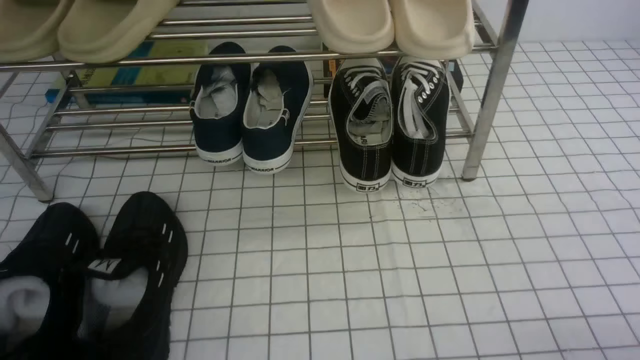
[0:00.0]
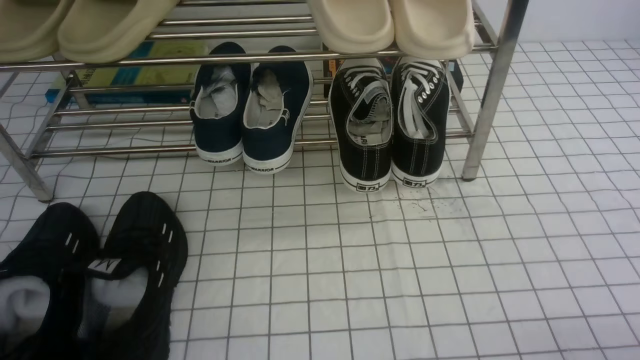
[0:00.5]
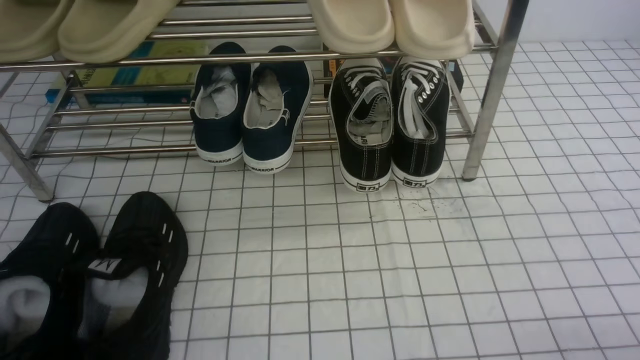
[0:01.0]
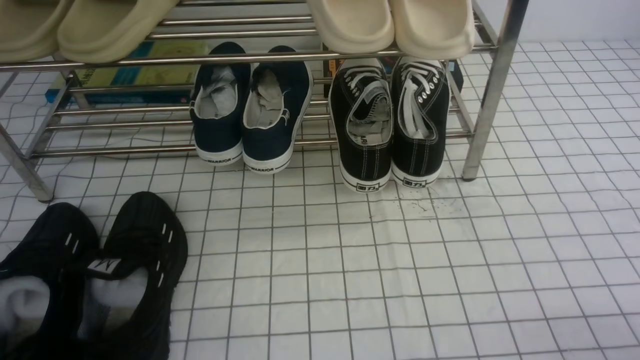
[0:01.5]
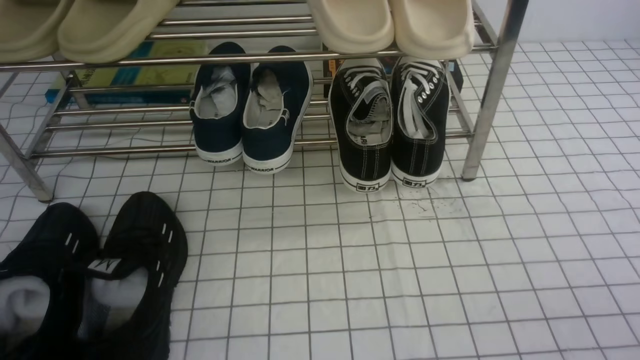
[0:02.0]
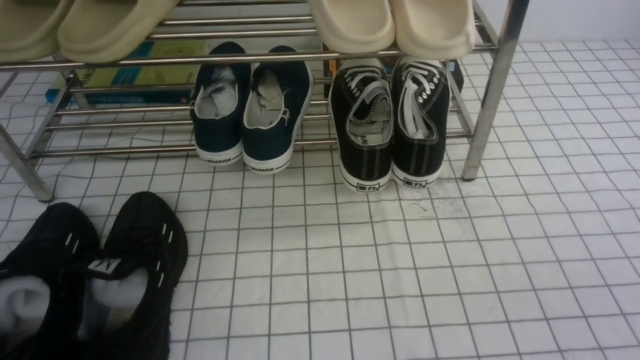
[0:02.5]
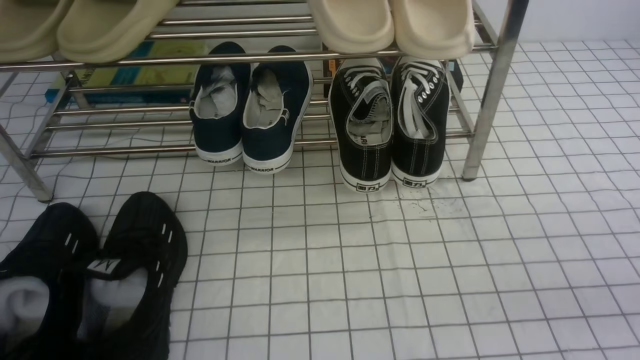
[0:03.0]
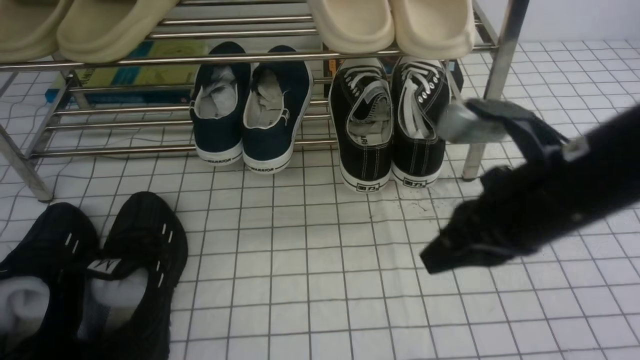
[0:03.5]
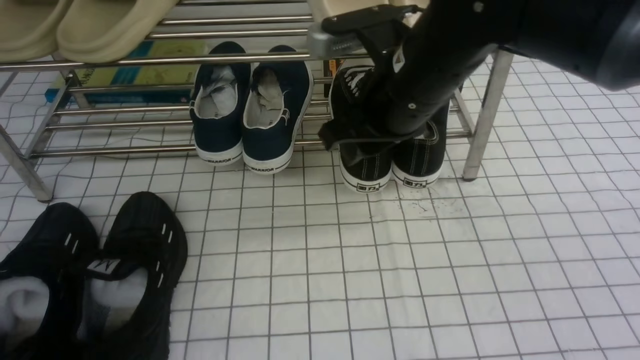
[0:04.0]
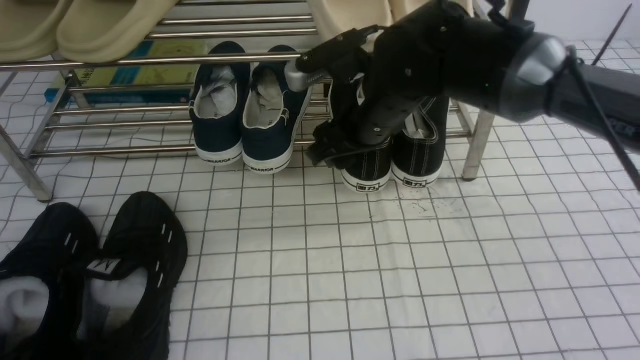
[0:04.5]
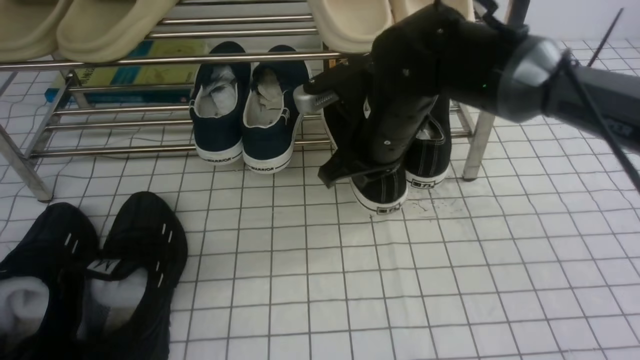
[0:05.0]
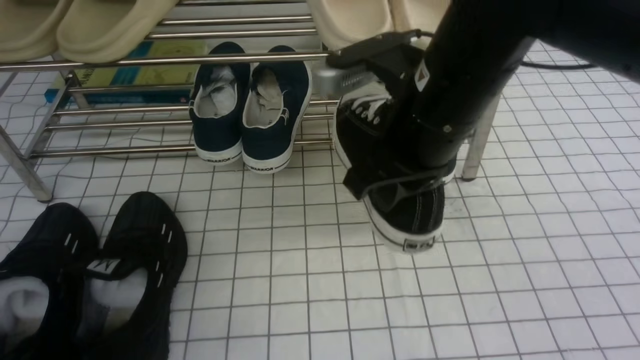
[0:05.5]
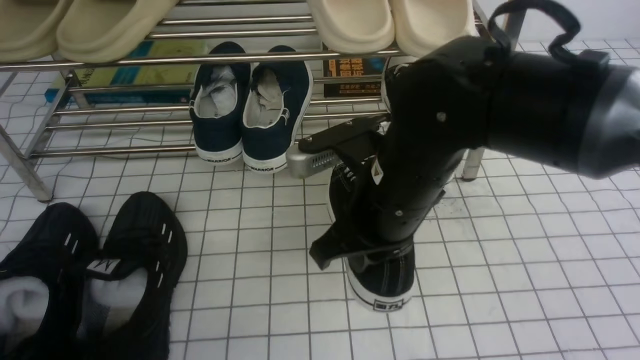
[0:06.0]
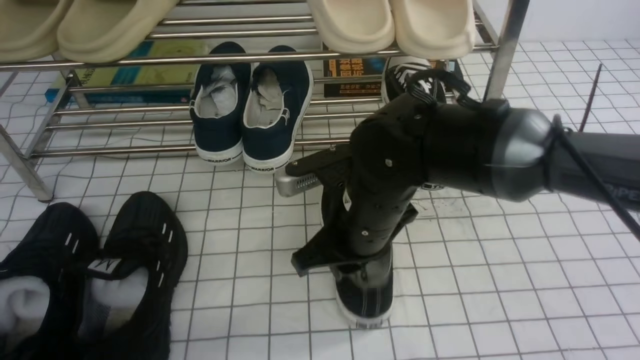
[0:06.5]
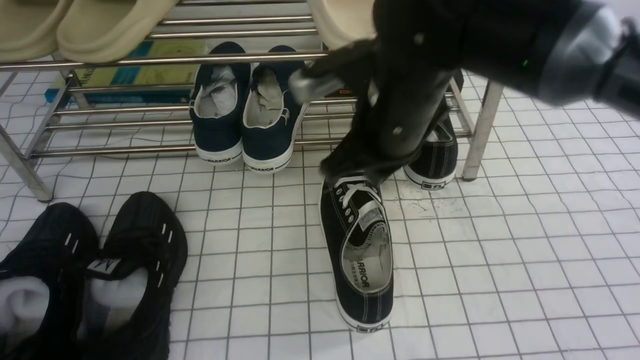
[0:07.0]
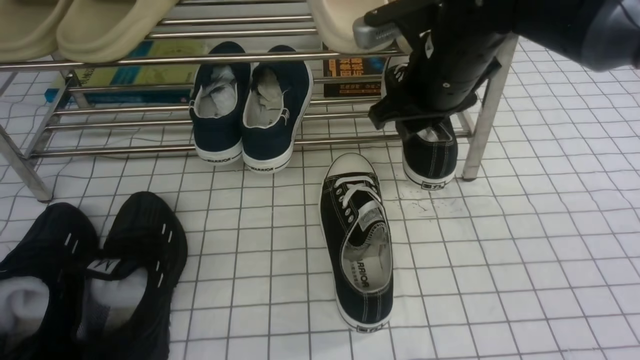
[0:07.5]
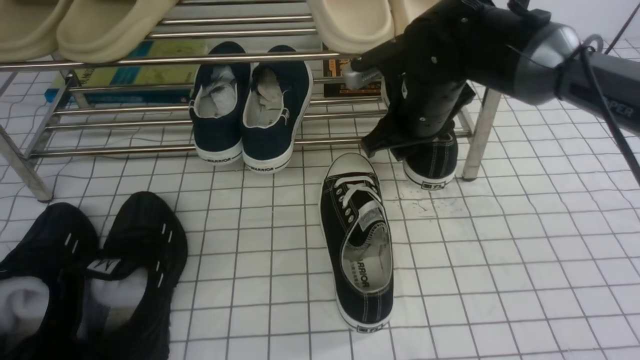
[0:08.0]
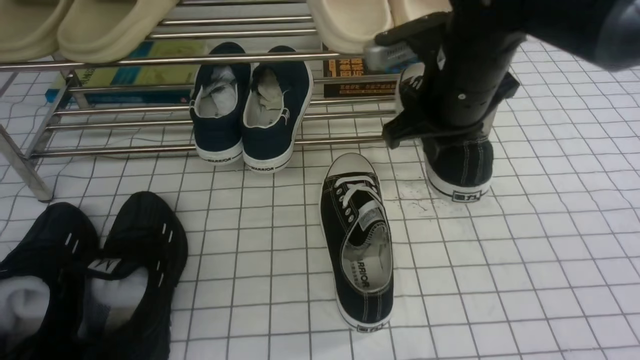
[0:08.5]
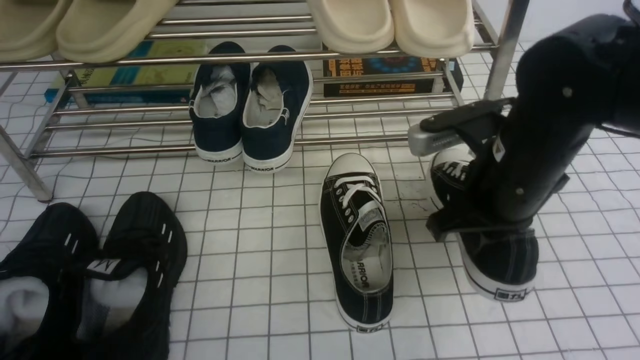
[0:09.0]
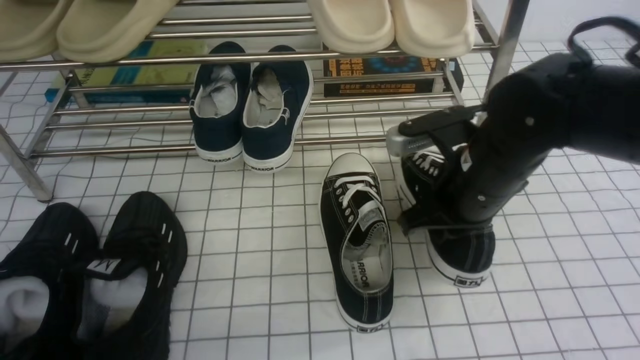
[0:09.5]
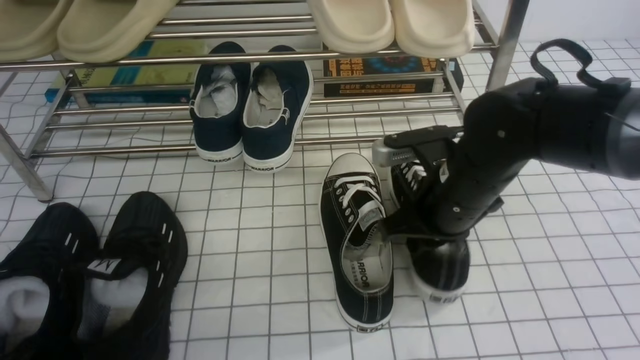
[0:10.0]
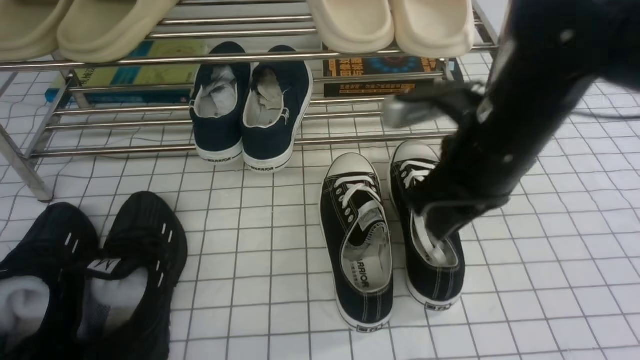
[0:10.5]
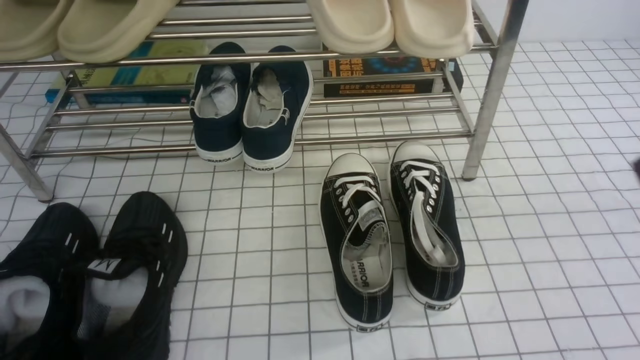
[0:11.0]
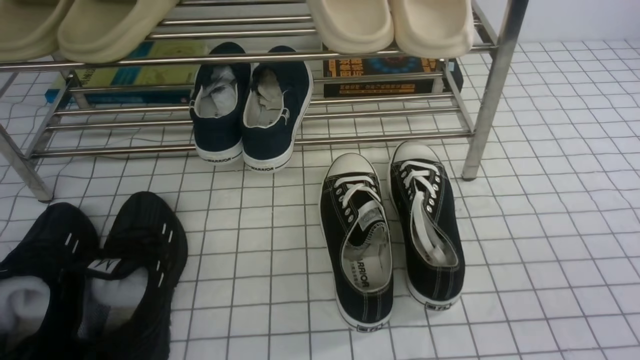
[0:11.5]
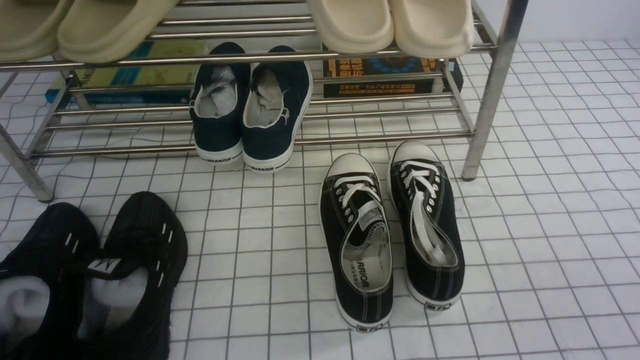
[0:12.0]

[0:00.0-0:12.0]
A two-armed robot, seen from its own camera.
Step, 0:00.0 to 0:04.5: use the right arm to clamp a shoe on the right side of the shoe rack.
Step, 0:05.0 to 0:06.5: use the right arm to take out the clamped shoe from the shoe rack and put it down.
Step, 0:07.0 to 0:08.0: use the right arm to clamp a shoe on the right side of the shoe rack.
Step, 0:08.5 to 0:10.5: use the right arm to take out the clamped shoe from the shoe rack and put it down.
0:02.0 to 0:04.0: The right gripper travels forward and to the left by about 35 cm, and closes and opens again.
0:04.0 to 0:06.0: The right gripper travels backward and downward by roughly 10 cm, and closes its fingers.
0:06.0 to 0:08.0: The right gripper shifts about 15 cm forward and to the right, and opens up.
0:08.0 to 0:10.0: The right gripper moves backward, some 10 cm.
0:10.0 to 0:12.0: The right gripper is displaced backward and to the right by roughly 30 cm.

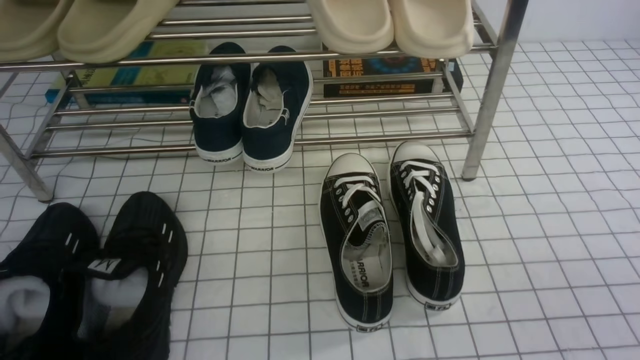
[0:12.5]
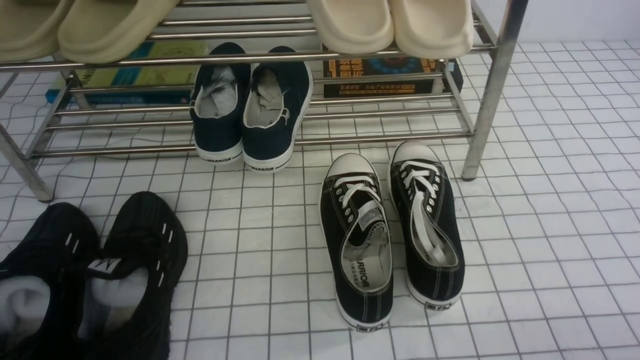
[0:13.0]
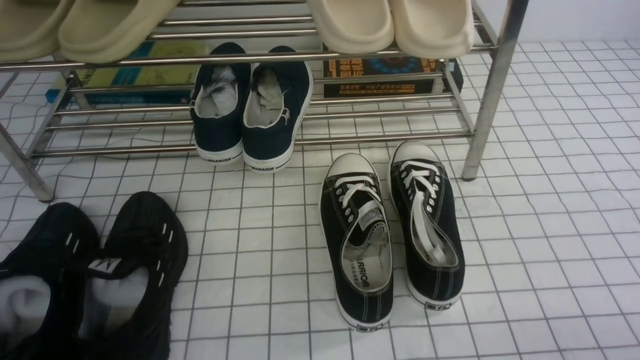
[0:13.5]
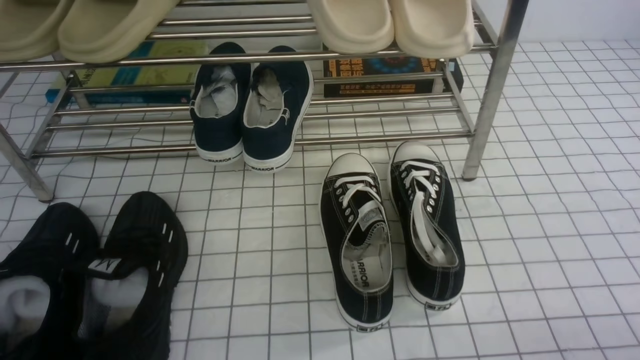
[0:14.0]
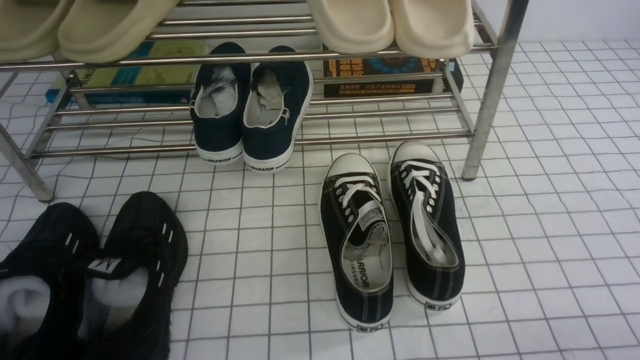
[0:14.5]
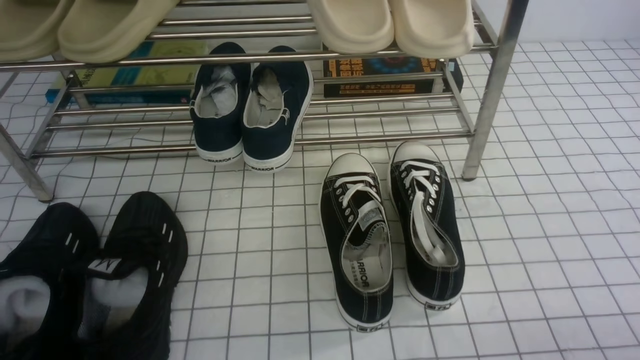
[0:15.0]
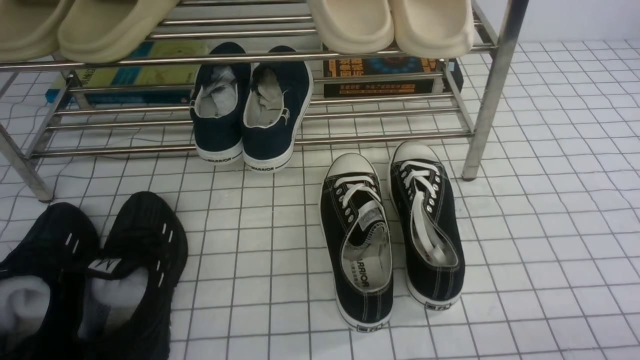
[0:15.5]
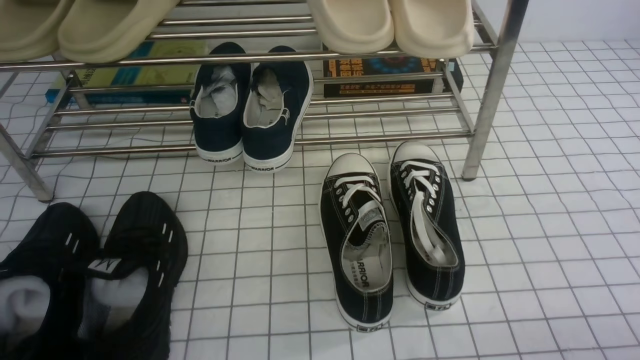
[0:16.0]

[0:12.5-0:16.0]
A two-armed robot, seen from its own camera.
0:14.5 to 0:16.0: The two grippers keep their place.

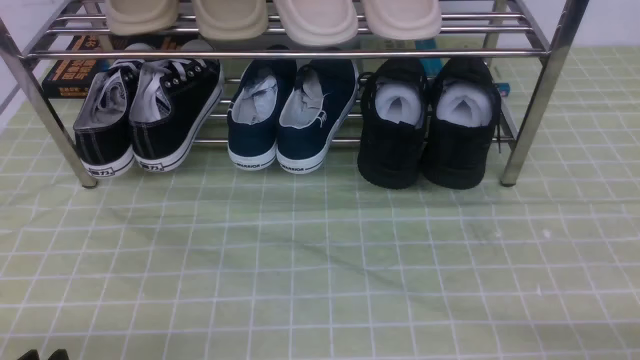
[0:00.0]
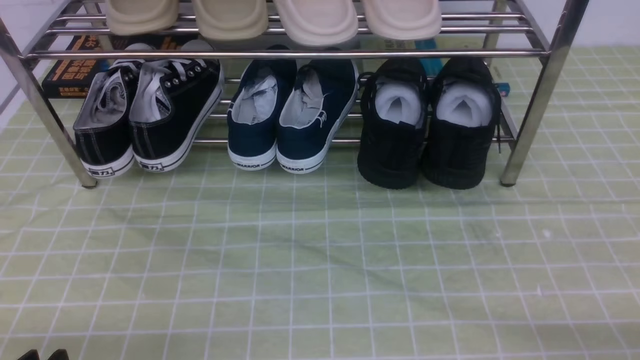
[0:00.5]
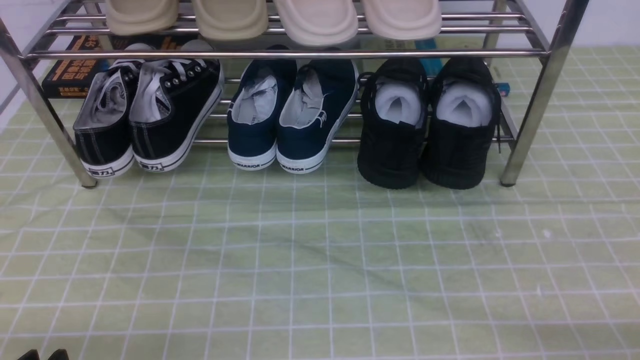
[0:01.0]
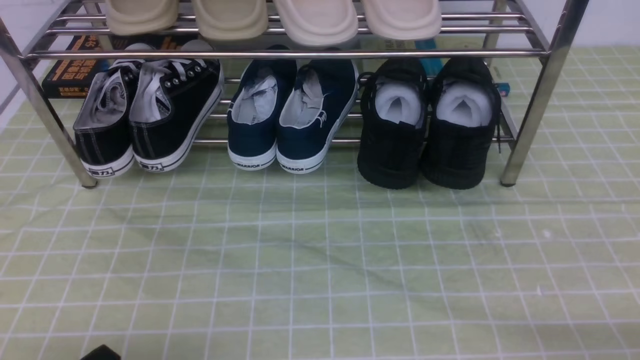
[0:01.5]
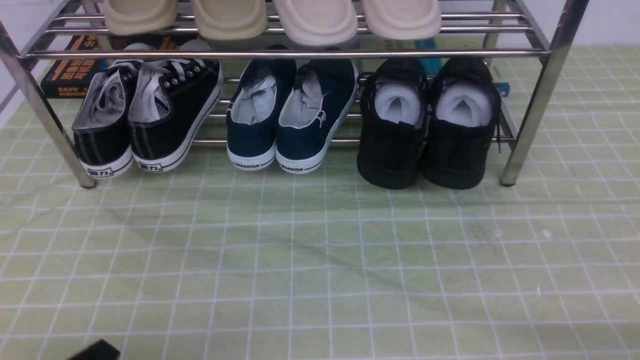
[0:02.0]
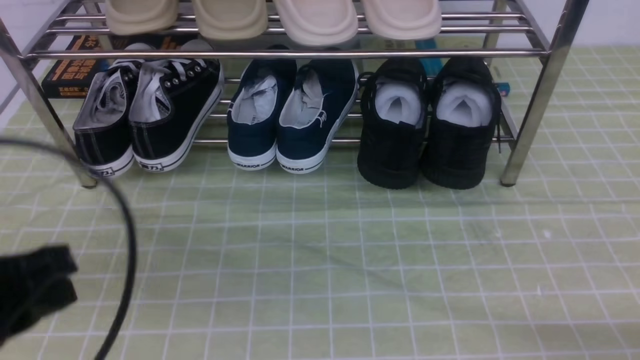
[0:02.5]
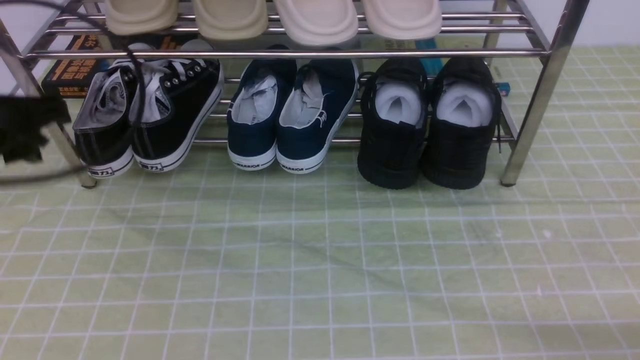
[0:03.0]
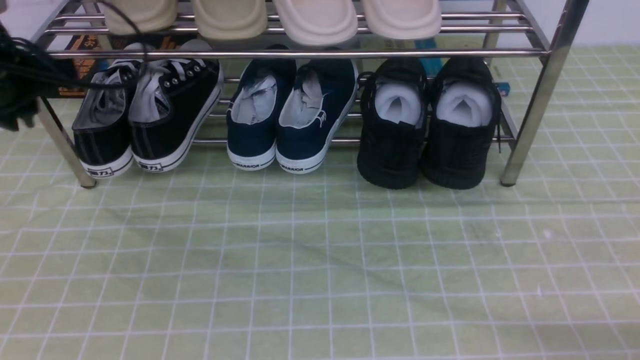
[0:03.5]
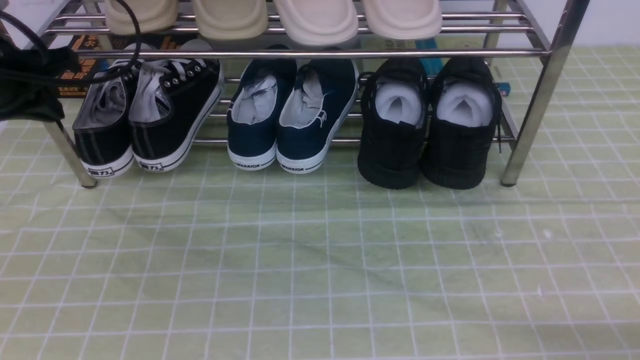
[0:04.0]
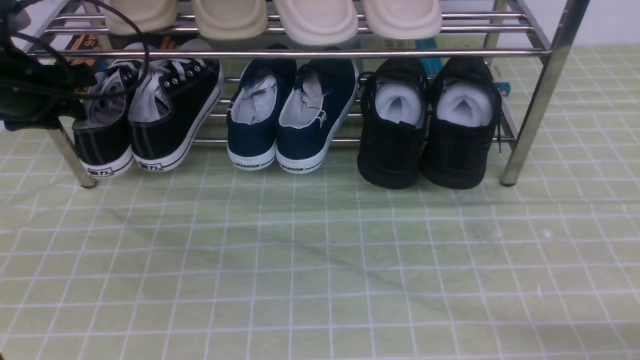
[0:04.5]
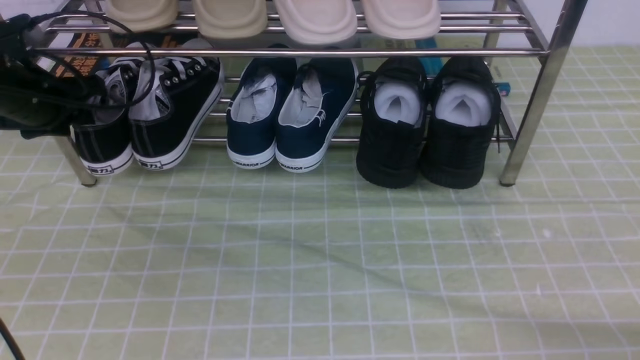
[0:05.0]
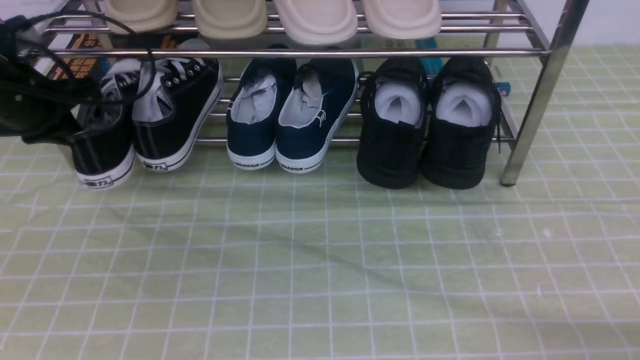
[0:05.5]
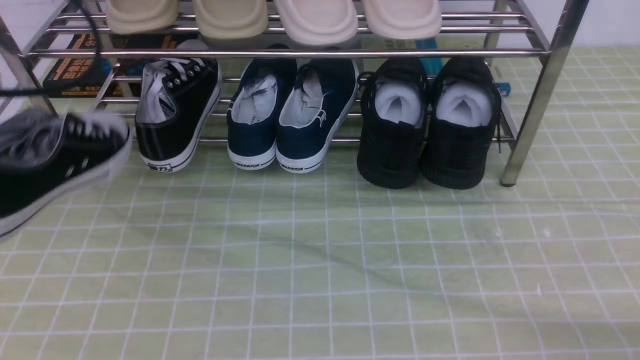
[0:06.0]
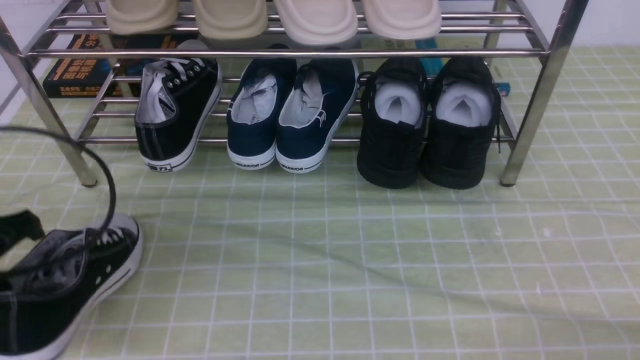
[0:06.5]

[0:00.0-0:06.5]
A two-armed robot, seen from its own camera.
Step, 0:00.0 to 0:05.0: use the left arm to clamp a shoe on the left side of the shoe rack.
0:02.0 to 0:04.5: The left gripper is displaced forward by about 35 cm, and opens.
0:04.5 to 0:06.5: The left gripper is displaced backward by roughly 20 cm, and closes up.
